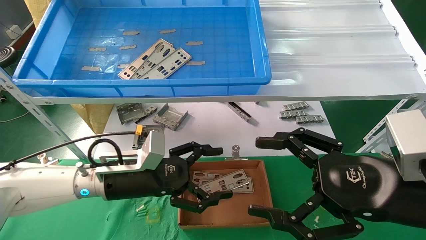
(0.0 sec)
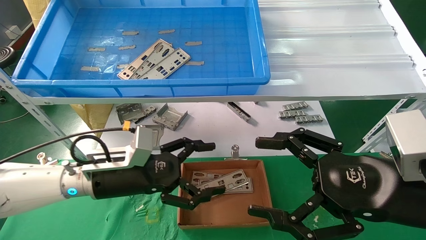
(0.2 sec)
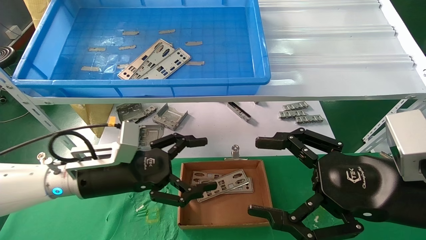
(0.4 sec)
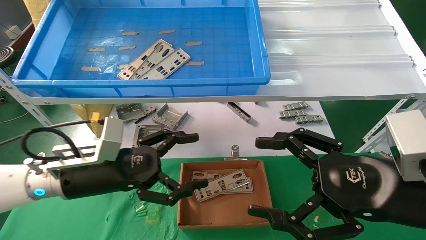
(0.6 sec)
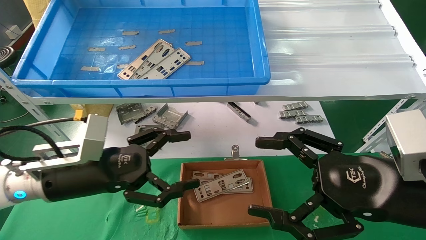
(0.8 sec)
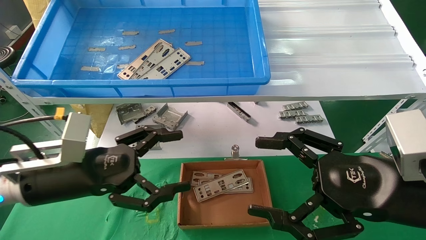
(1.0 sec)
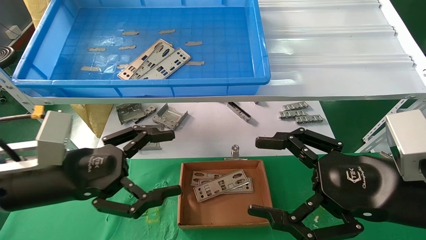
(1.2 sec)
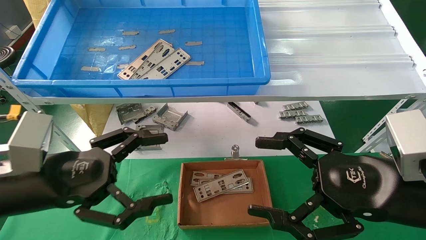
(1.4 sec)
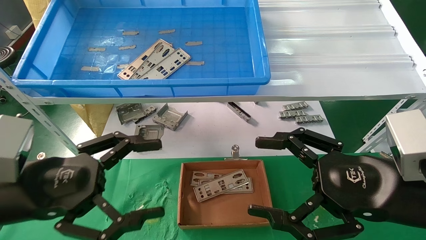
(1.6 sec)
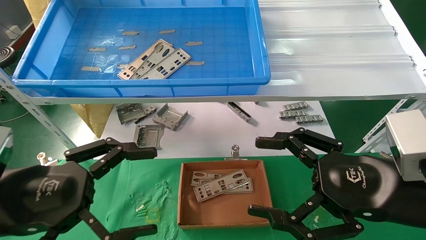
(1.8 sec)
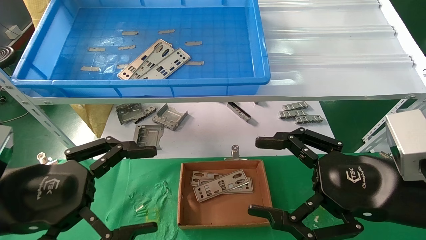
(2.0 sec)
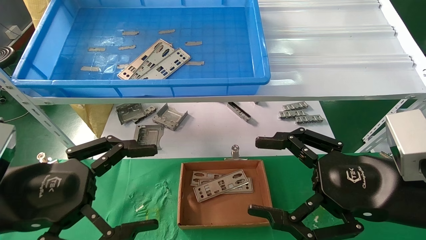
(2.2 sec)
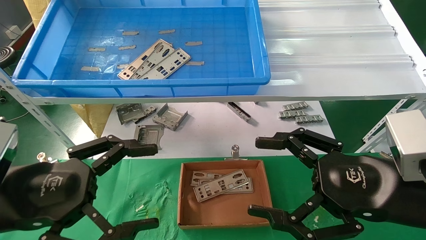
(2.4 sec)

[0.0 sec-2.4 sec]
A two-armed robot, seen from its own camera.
Task of the whole recording: pick up the parts on the tray and put them in the cardboard box.
0.0 sec to 1.2 sec: The left gripper travels backward, to the left and upward by roughly 15 cm.
1.2 sec to 2.4 sec: The left gripper moves backward, approximately 5 cm.
